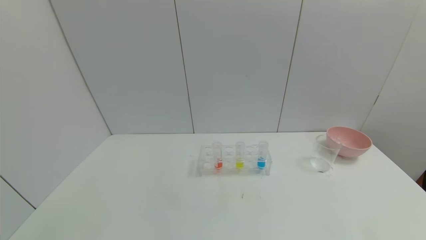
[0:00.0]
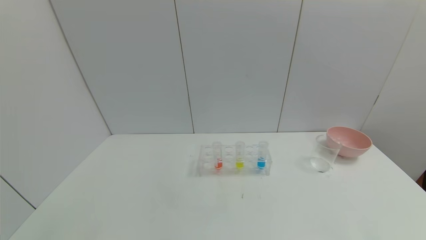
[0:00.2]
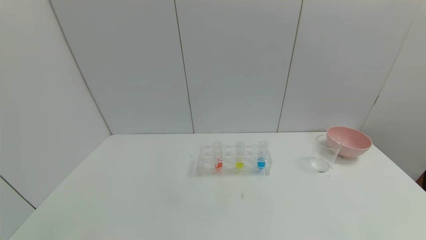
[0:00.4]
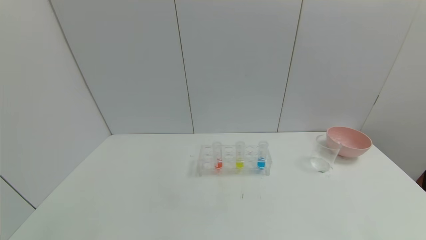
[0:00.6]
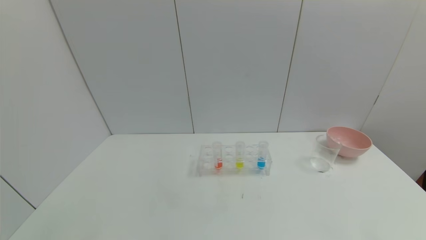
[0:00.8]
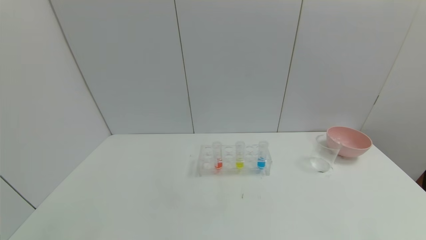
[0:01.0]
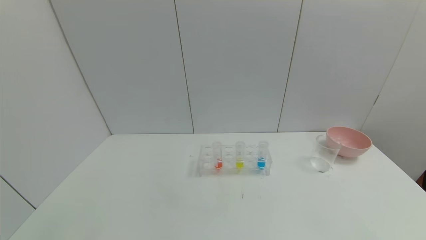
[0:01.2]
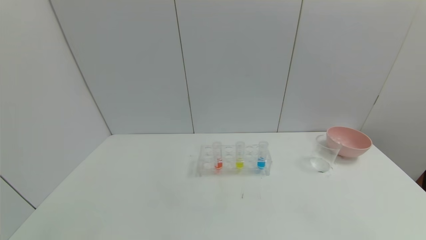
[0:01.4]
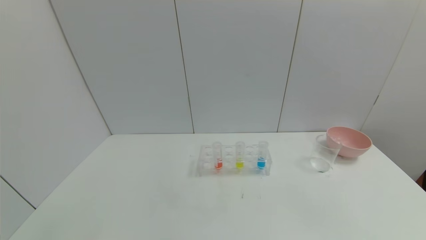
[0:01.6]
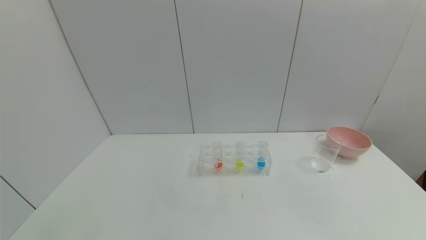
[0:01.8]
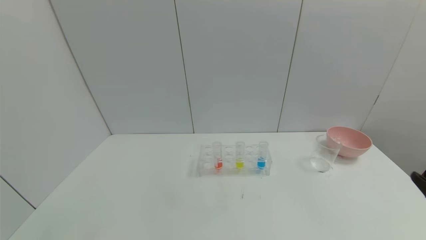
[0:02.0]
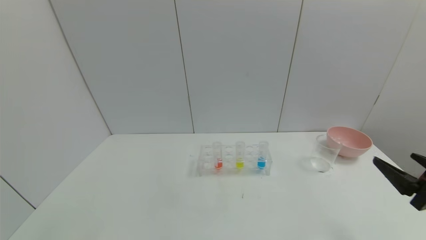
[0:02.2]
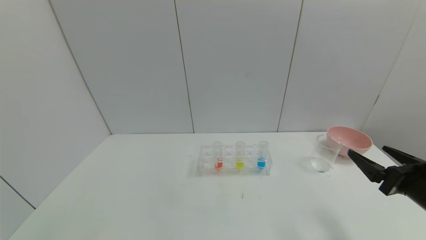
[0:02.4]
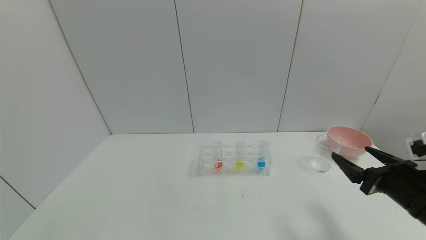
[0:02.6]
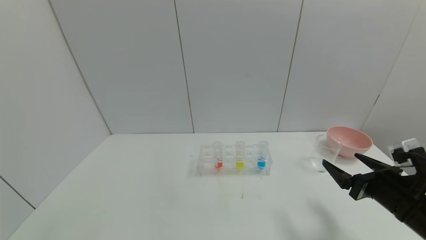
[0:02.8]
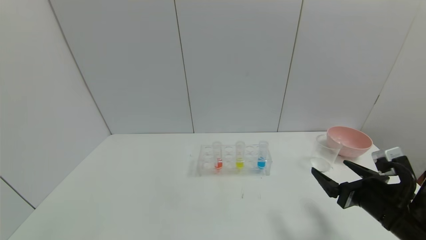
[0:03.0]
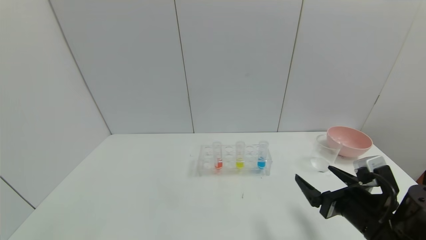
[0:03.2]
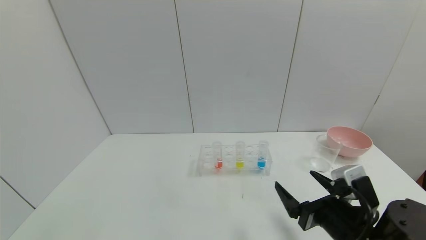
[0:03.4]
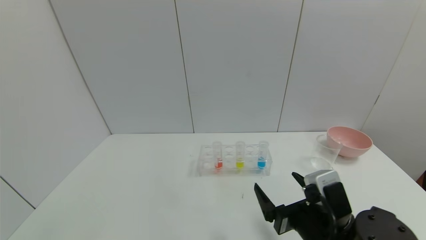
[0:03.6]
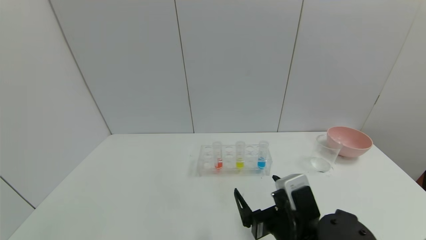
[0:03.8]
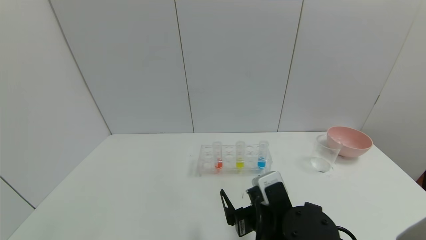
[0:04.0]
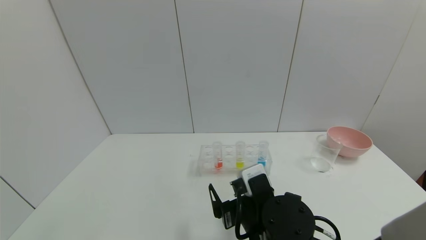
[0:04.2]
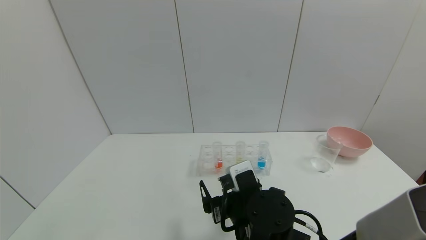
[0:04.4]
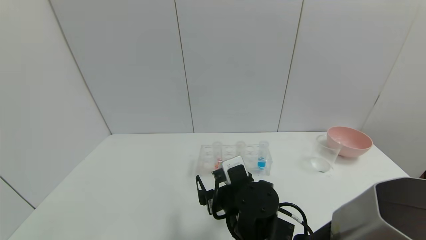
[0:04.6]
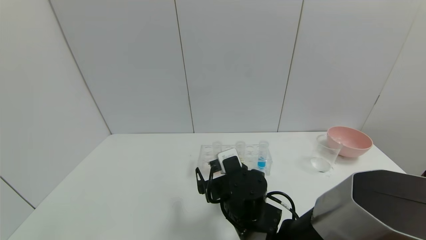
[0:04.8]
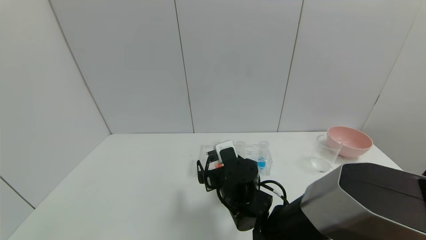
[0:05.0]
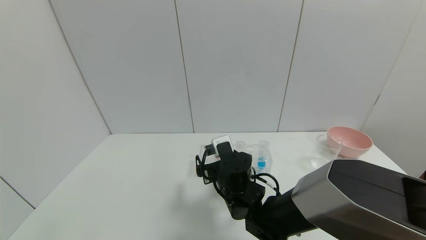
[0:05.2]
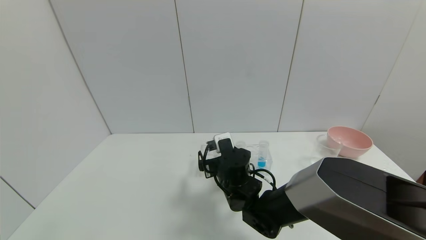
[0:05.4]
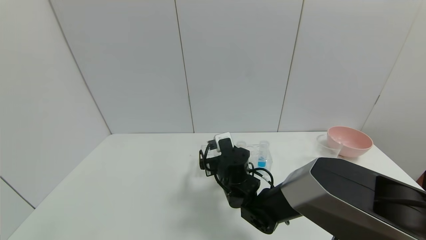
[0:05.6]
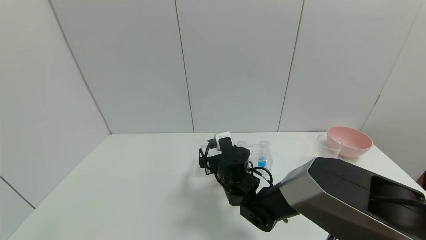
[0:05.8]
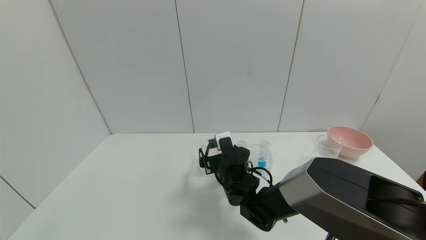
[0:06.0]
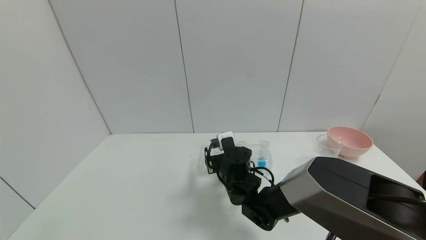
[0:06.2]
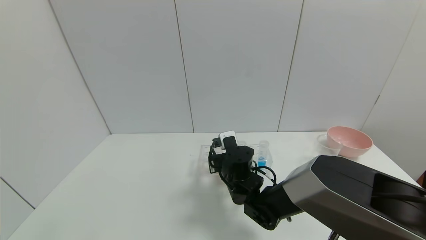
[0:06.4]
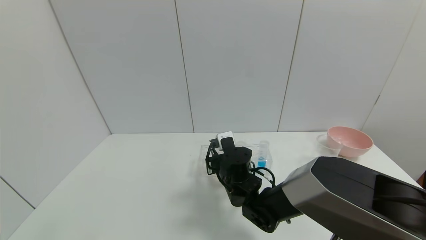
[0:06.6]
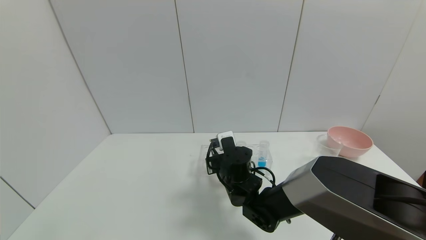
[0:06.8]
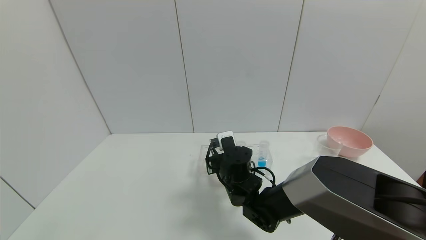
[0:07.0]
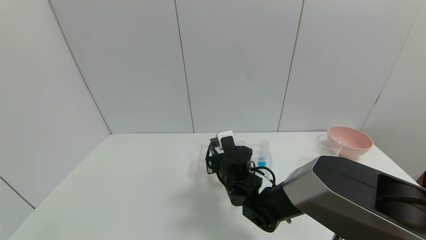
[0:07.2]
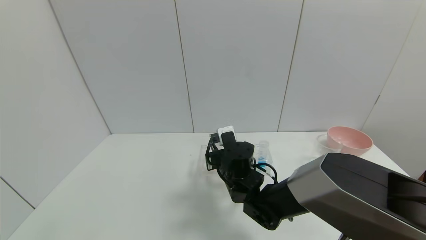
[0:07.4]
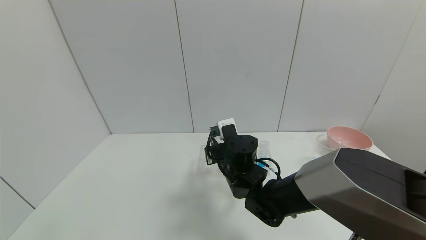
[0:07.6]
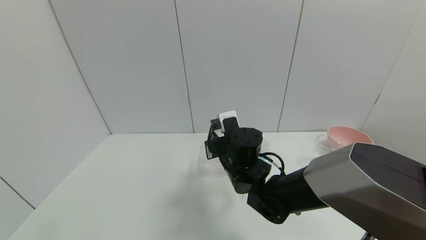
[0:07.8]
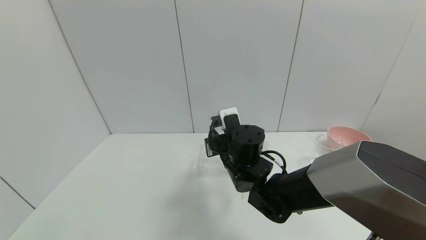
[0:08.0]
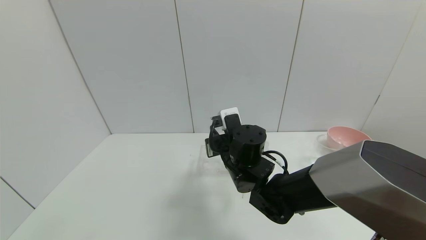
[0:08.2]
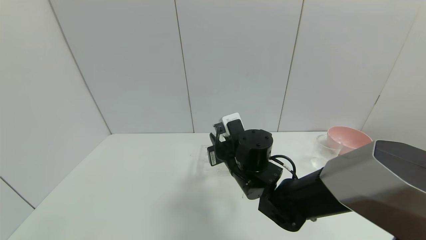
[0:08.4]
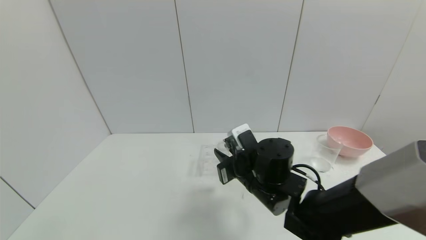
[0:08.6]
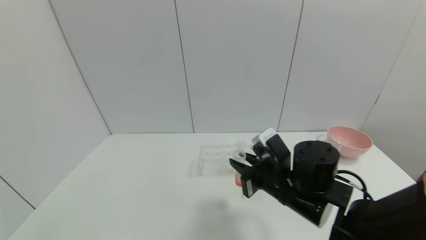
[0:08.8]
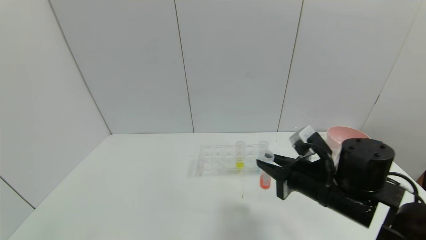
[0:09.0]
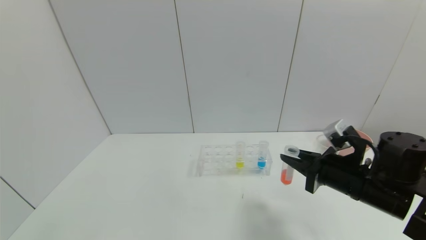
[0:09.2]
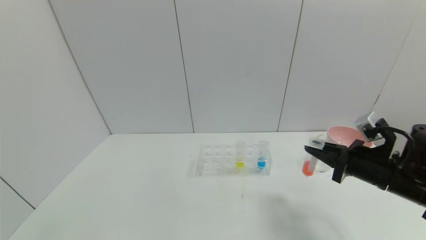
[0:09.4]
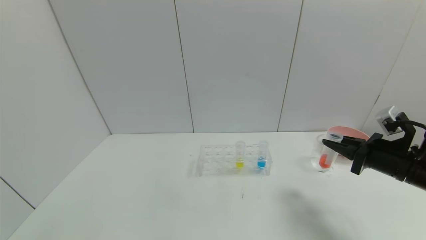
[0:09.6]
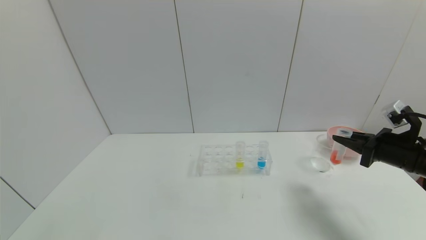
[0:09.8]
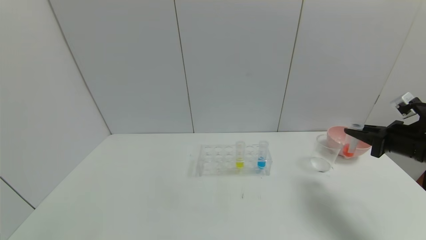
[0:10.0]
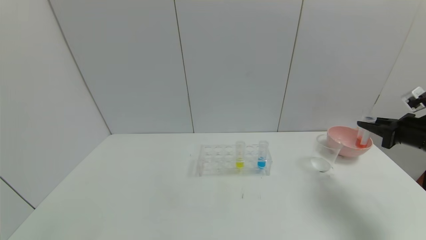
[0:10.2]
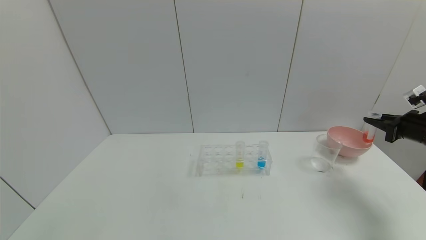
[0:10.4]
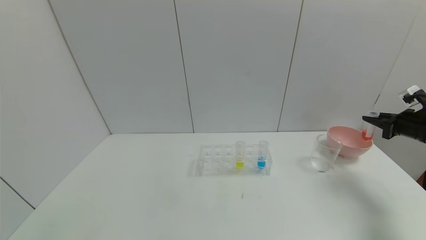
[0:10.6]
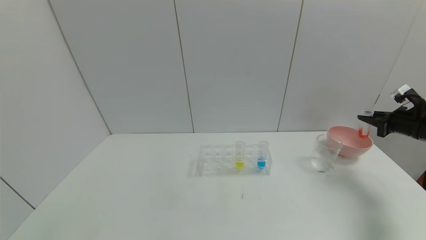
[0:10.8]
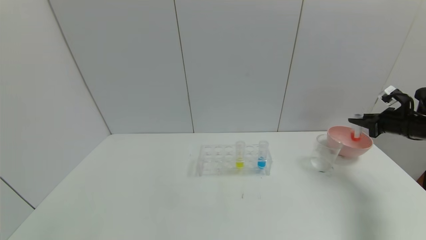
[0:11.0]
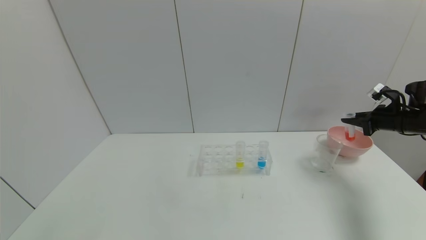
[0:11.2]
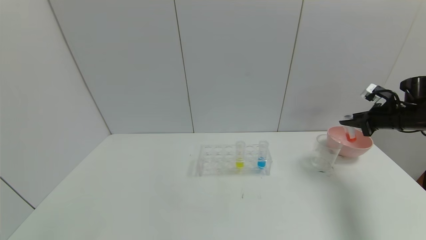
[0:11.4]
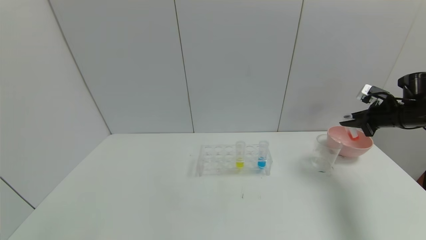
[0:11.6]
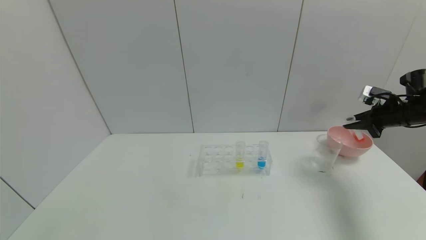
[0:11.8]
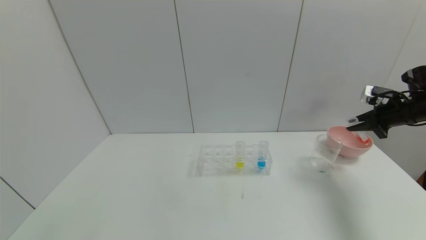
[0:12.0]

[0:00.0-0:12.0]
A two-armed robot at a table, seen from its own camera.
Task of the whole recording: pick up the test tube with red pigment and the test tube with blue pigment by grippers and pour them into the container.
Step, 0:00.0 to 0:07.0: Grasp the red reagent with the right gripper.
0:01.6 to 0:03.0: The right gripper shifts some 20 cm forward.
0:03.0 to 0:04.4: The right gripper heads to the left, covering some 25 cm.
0:04.4 to 0:06.0: The right gripper shifts some 15 cm forward.
0:06.0 to 0:07.6: The right gripper closes.
0:07.6 to 0:09.0: The right gripper is displaced to the right and backward by roughly 20 cm.
0:09.0 to 0:10.4: The right gripper goes some 30 cm to the right.
0:10.4 to 0:12.0: The right gripper is displaced forward by about 5 cm.

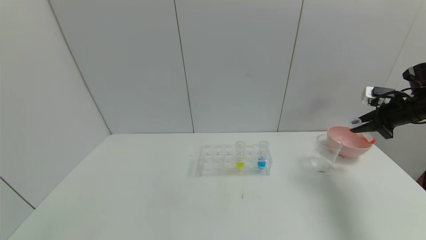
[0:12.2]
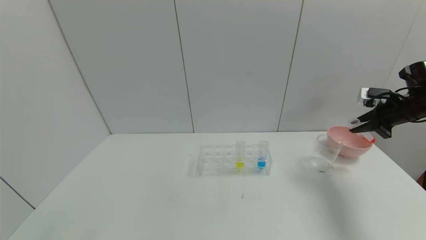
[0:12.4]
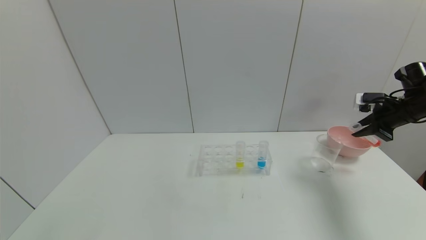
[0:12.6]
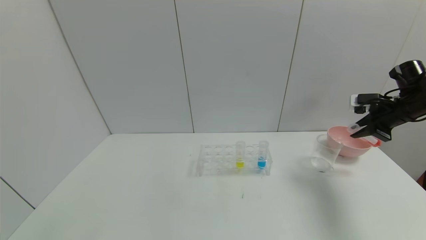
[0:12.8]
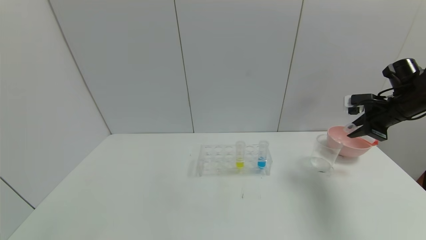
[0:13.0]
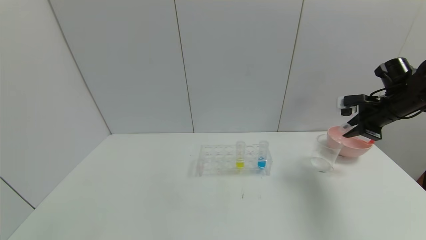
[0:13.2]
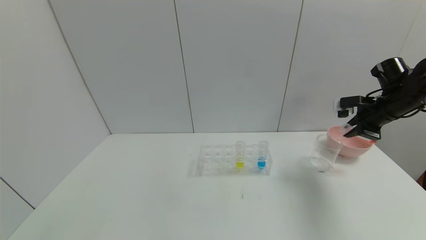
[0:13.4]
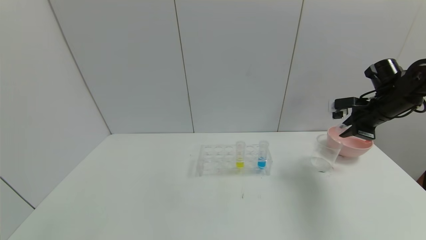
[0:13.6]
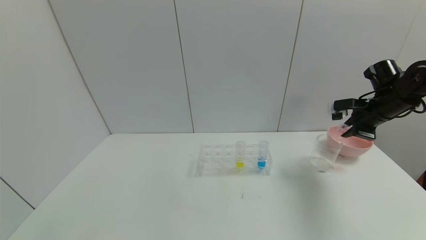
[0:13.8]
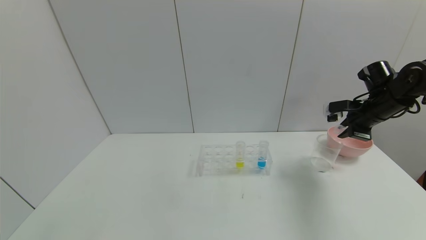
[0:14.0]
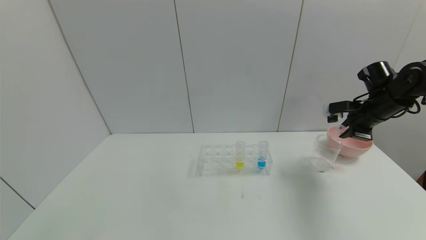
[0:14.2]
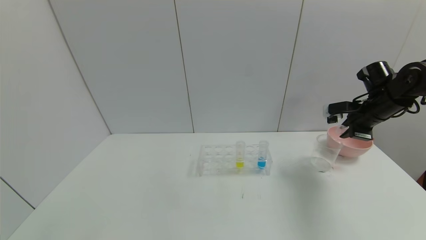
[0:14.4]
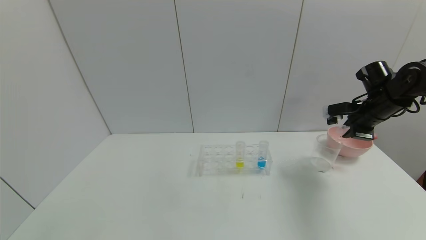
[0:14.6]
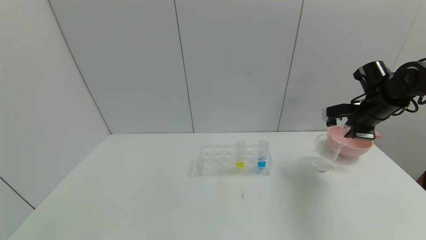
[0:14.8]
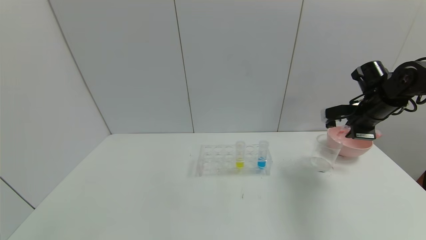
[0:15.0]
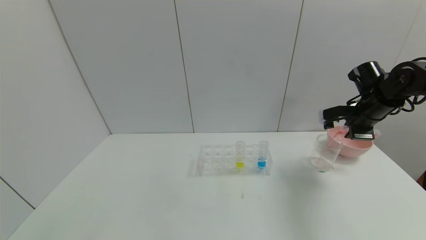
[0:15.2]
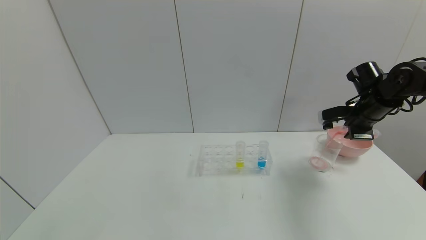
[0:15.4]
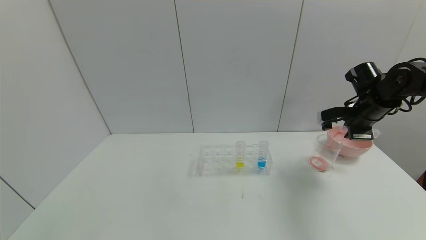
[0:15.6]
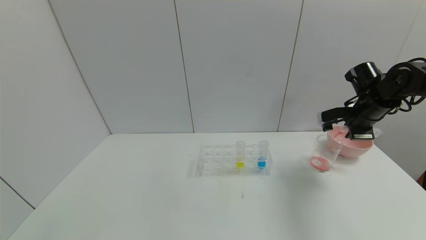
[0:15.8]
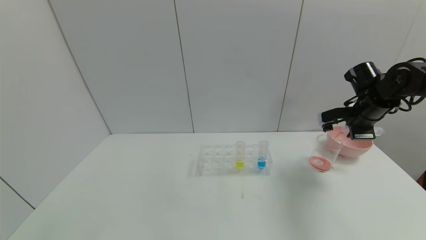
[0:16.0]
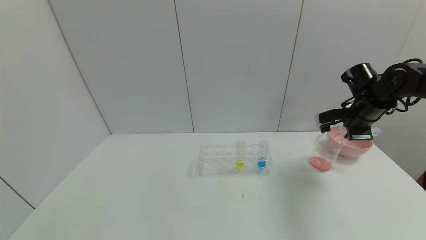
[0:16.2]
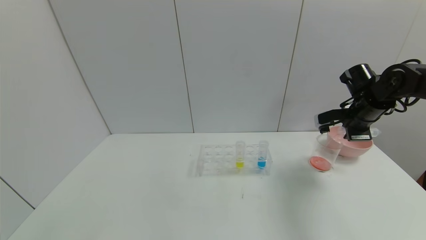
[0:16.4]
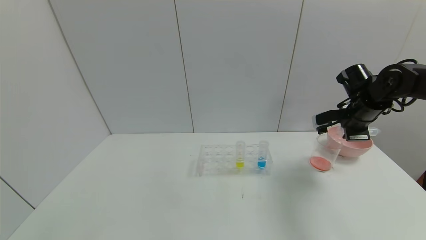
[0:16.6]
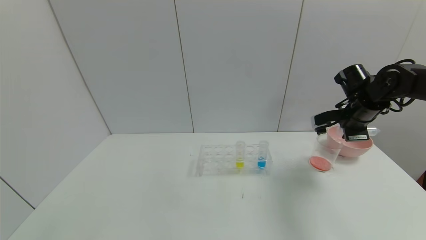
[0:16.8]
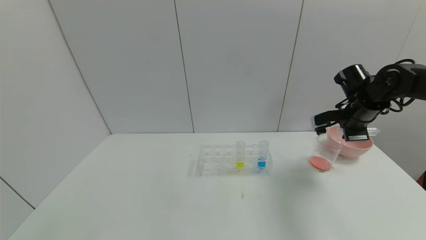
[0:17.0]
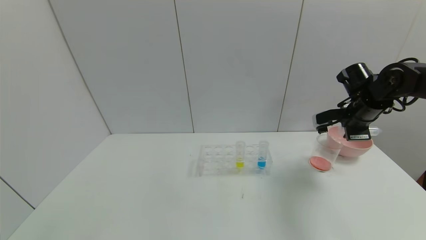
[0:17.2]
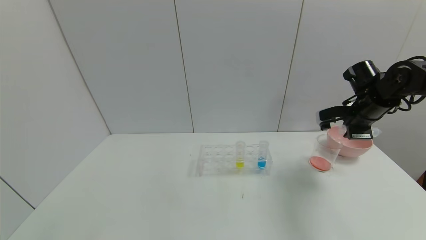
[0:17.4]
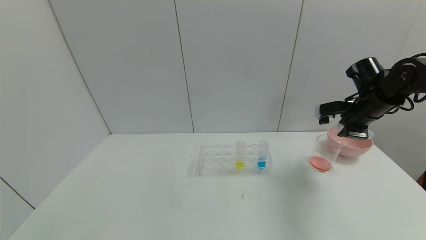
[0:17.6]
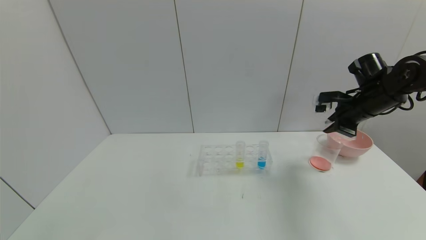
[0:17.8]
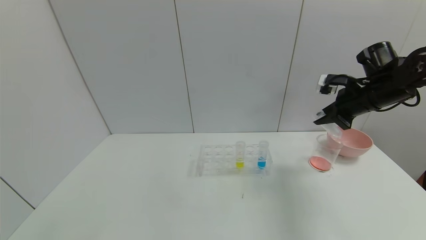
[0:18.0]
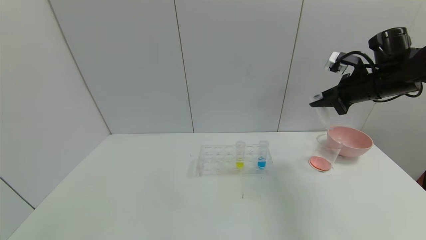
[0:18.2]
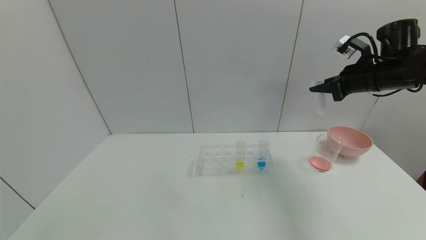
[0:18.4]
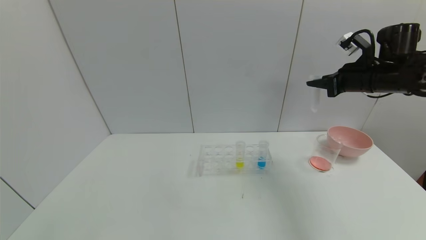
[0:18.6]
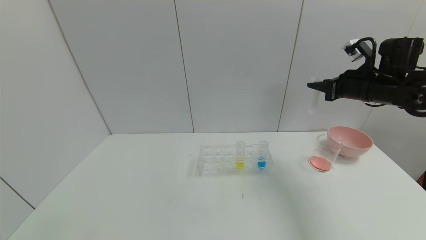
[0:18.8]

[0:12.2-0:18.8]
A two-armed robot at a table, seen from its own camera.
Task of the whole recording: pick up the test tube with red pigment and the test tube with blue pigment by grippers and pour them into the container.
Step, 0:12.2 to 0:16.8: Pour the red reagent into the graduated cylinder with the right gripper.
0:12.2 to 0:13.8: The right gripper shifts about 10 cm to the left.
0:13.8 to 0:15.4: There are only small adjustments of the grippers.
0:15.4 to 0:17.2: The grippers make only small movements.
